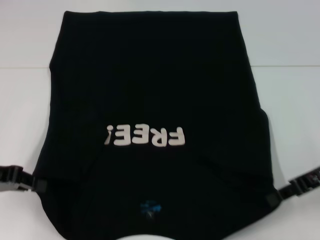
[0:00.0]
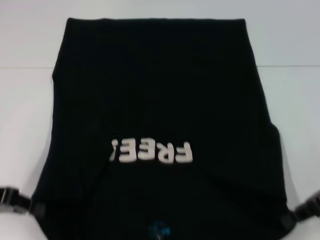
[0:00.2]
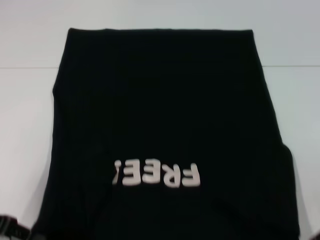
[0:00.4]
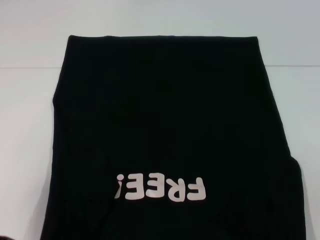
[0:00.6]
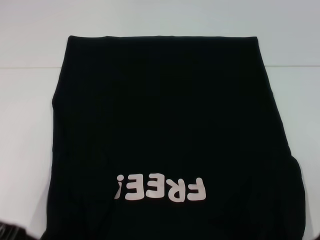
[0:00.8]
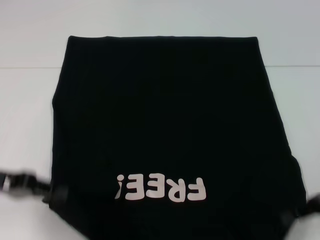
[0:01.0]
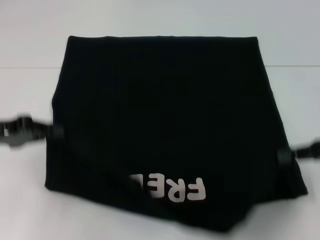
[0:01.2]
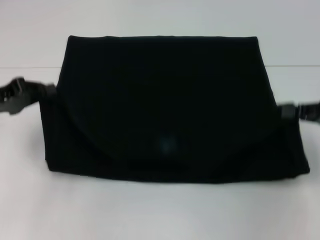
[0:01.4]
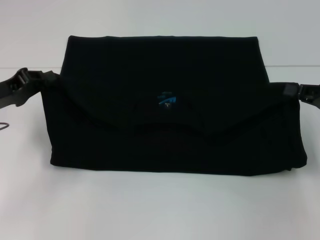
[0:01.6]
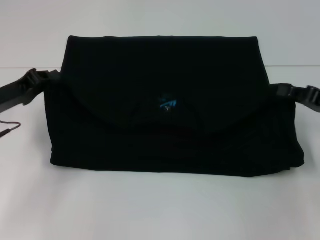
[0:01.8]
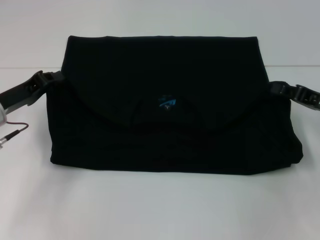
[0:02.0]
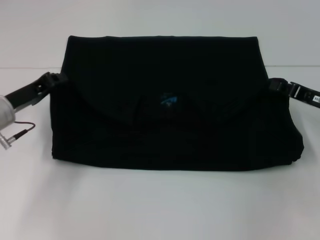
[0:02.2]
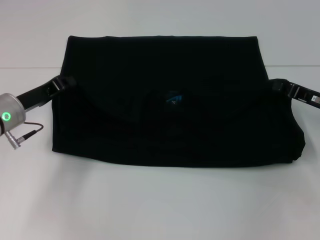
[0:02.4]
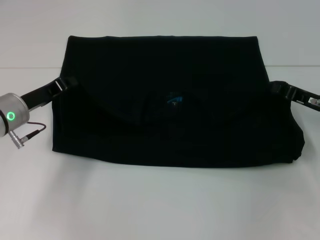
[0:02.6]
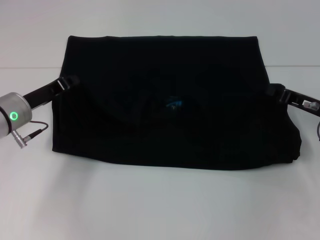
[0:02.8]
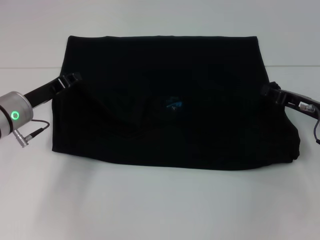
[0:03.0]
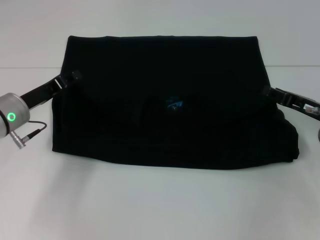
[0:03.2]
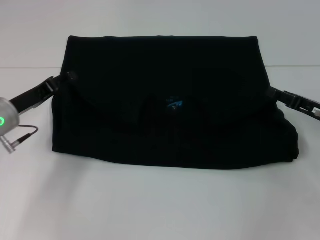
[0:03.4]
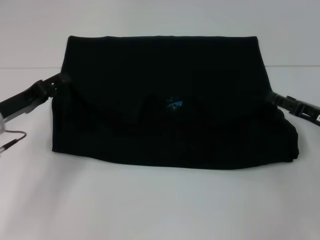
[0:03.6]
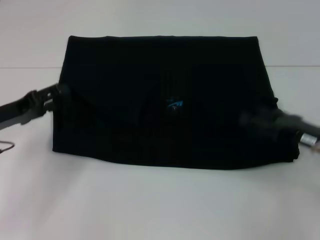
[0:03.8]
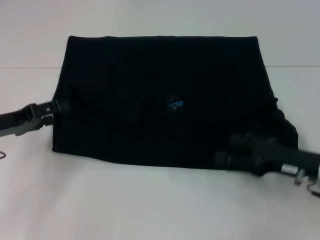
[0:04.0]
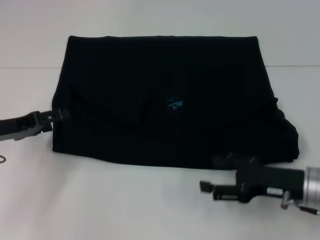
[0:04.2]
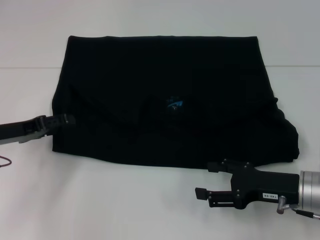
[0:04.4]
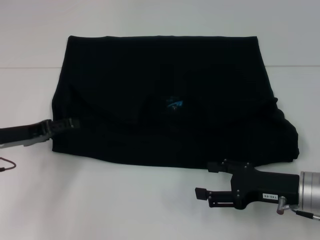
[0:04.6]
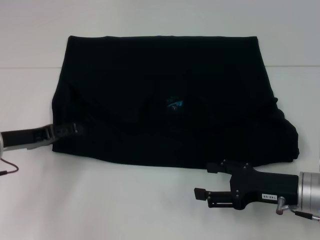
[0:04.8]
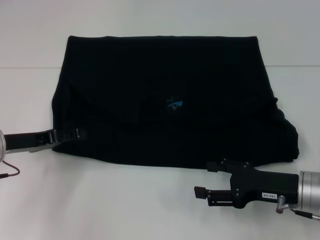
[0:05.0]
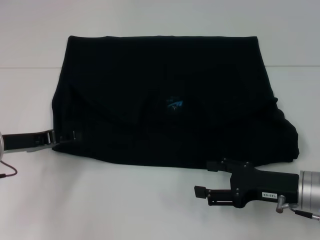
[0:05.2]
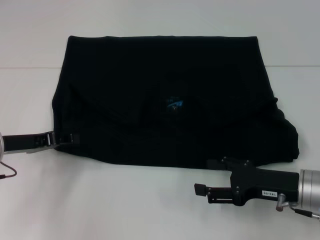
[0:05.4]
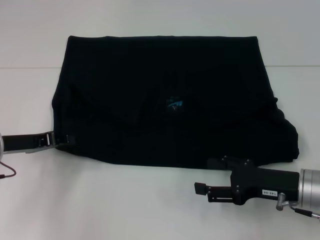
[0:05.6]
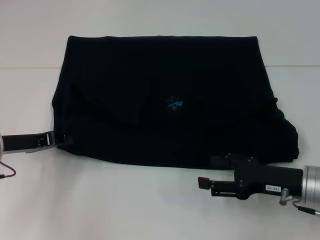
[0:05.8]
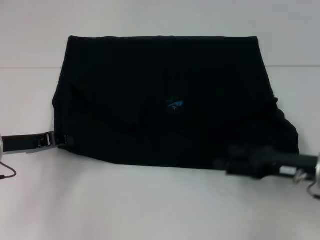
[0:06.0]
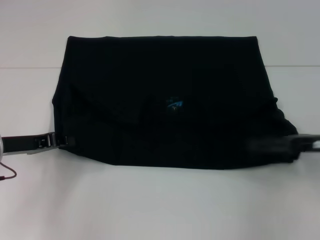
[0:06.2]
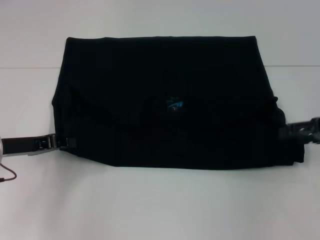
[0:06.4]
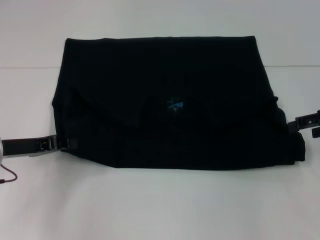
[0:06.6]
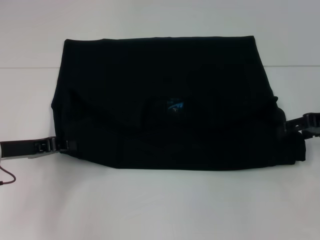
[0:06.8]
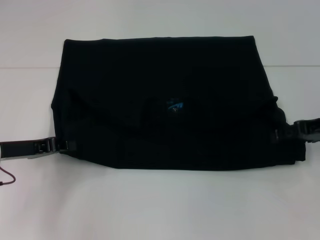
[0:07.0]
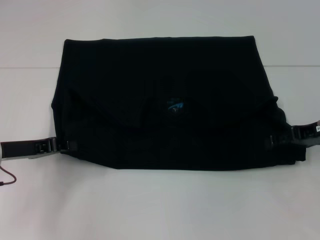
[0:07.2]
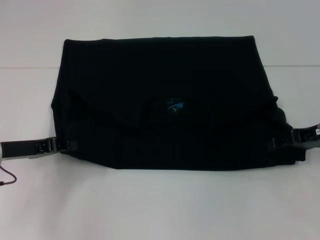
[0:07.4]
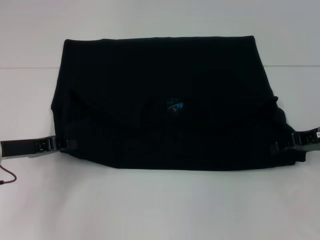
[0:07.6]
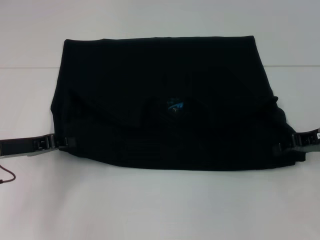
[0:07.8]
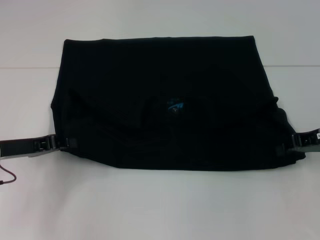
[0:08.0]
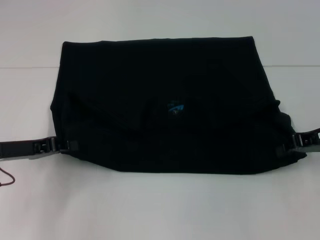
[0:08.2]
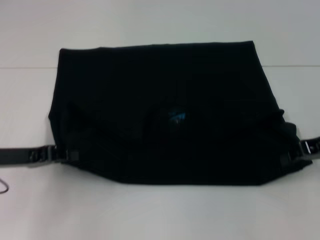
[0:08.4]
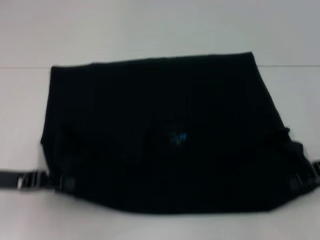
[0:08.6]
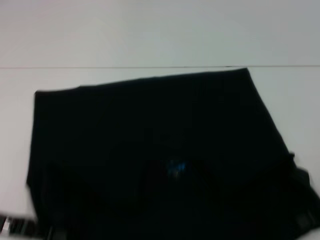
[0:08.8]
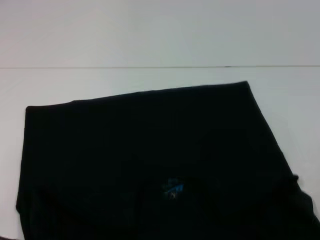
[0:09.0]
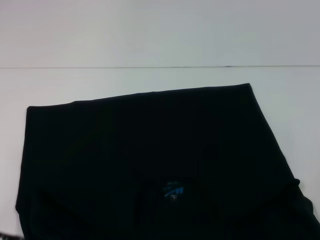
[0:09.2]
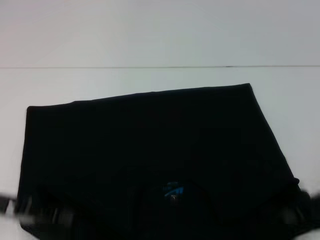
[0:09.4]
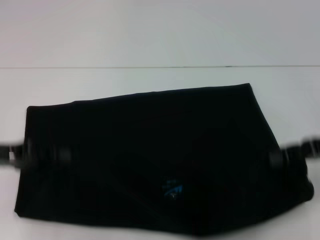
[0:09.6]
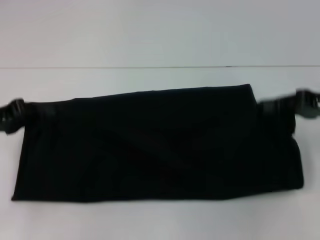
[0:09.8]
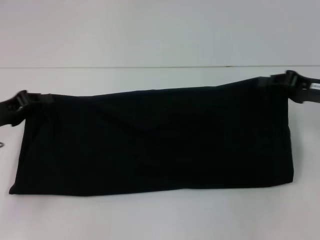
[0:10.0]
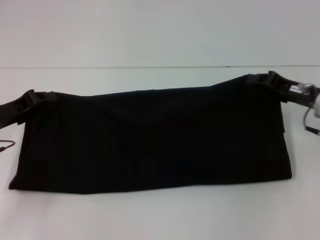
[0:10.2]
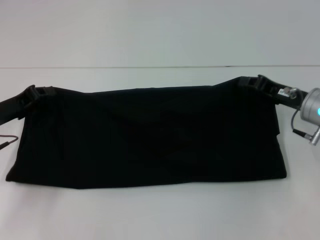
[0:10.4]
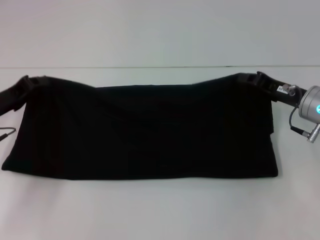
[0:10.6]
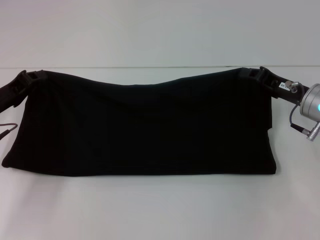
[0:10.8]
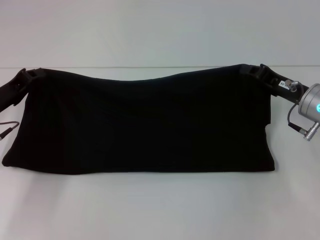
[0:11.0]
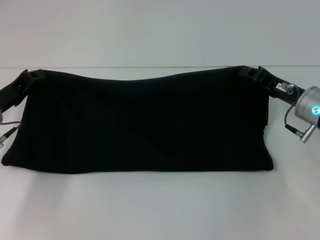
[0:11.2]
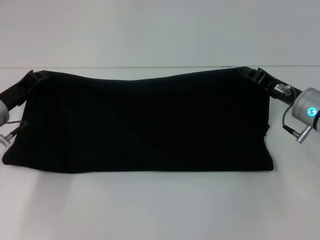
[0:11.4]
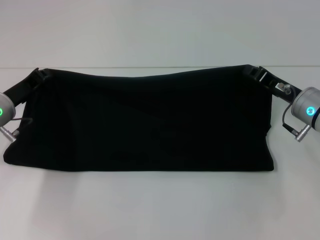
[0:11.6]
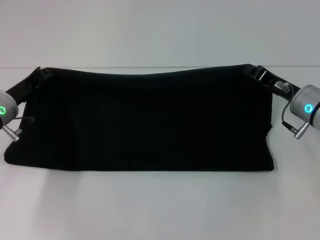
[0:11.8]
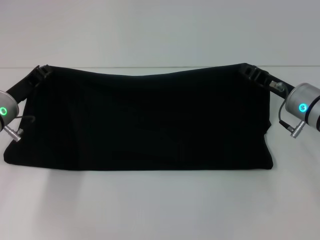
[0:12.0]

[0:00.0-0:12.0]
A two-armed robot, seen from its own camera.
Step, 0.0 to 3.2 s: Fold the clothes with your left hand.
Step, 0.0 to 3.2 s: Fold the clothes with your right hand.
Step, 3.4 to 9.0 s: Pull the clothes with your left hand.
Step, 3.4 to 9.0 s: Pull the clothes with your right hand.
0.0 to 1.6 s: The right gripper travels to the right by approximately 5 cm. The left gripper goes some 5 cm forward.
1.6 to 3.0 s: The right gripper shifts roughly 10 cm downward and to the left, while the left gripper travels to the right by approximately 5 cm.
3.0 to 4.4 s: The right gripper heads backward, covering approximately 10 cm, and opens up. The left gripper heads to the left, covering approximately 5 cm, and opens its fingers.
4.4 to 6.0 s: The left gripper closes.
6.0 to 7.6 s: The right gripper goes roughly 10 cm forward and upward.
7.6 to 9.0 s: Both grippers travel together backward, roughly 10 cm. The right gripper closes.
9.0 to 10.4 s: The left gripper is displaced forward by some 10 cm; the right gripper moves forward and to the left, about 10 cm.
10.4 to 12.0 s: The grippers move only a little.

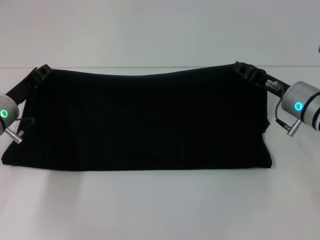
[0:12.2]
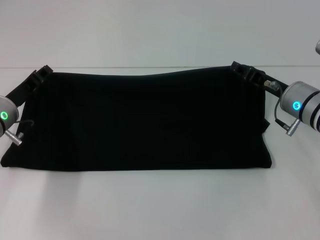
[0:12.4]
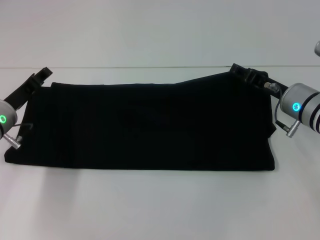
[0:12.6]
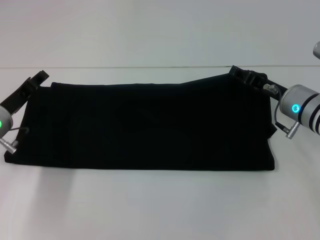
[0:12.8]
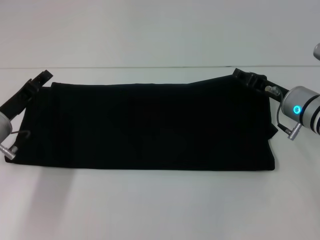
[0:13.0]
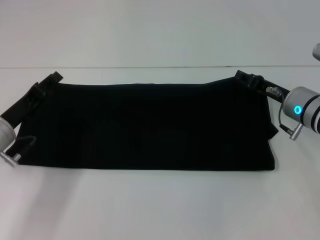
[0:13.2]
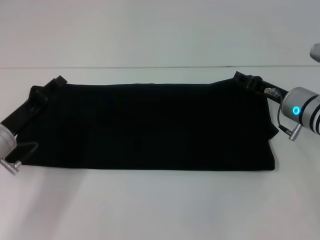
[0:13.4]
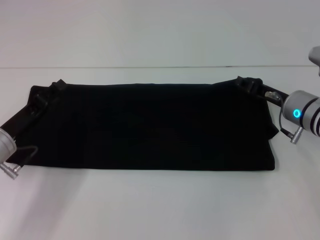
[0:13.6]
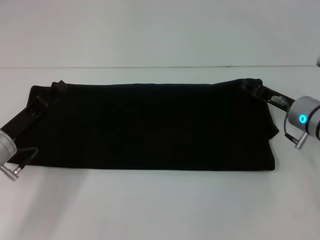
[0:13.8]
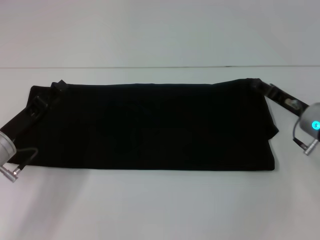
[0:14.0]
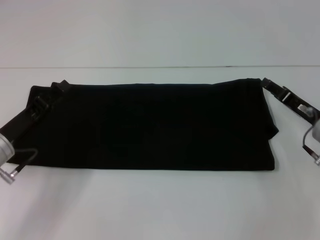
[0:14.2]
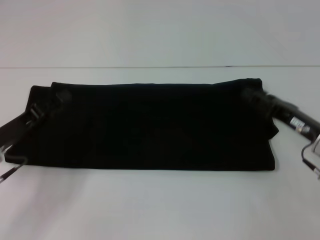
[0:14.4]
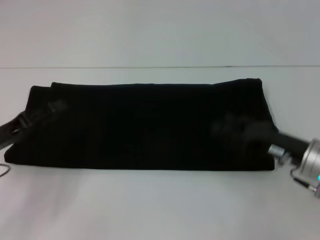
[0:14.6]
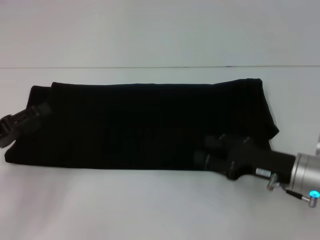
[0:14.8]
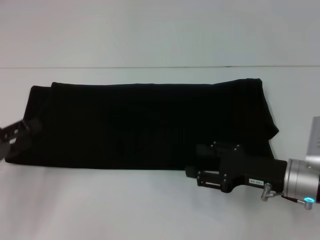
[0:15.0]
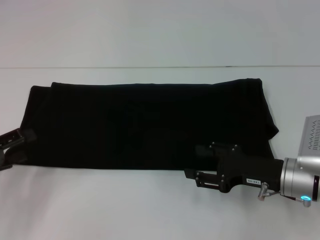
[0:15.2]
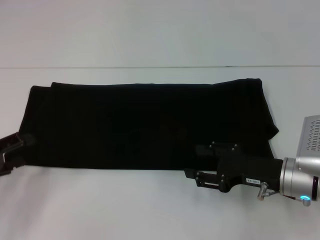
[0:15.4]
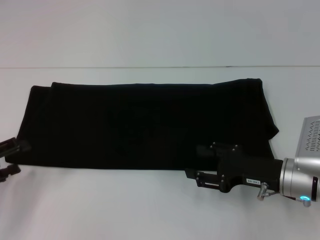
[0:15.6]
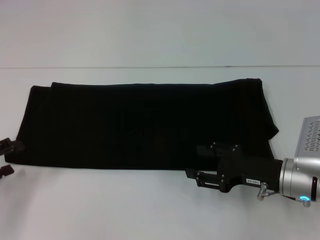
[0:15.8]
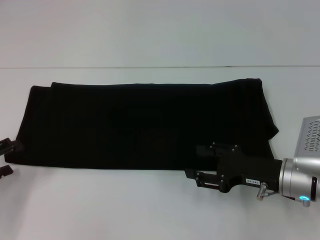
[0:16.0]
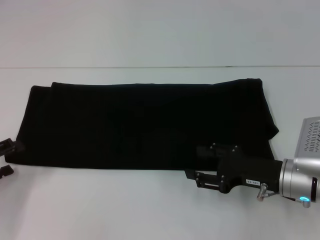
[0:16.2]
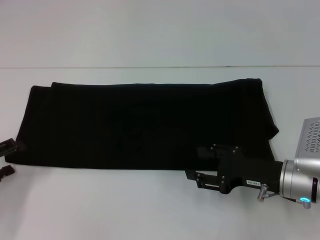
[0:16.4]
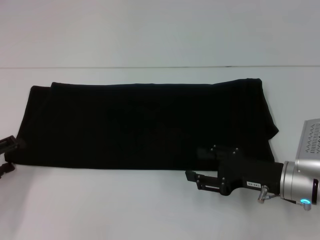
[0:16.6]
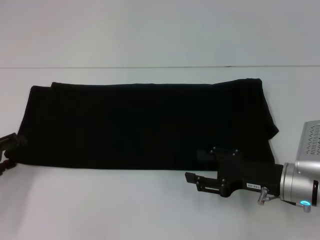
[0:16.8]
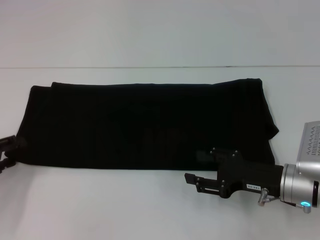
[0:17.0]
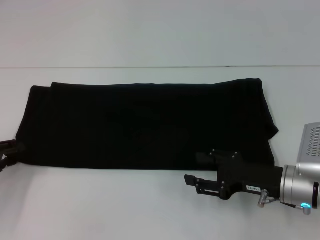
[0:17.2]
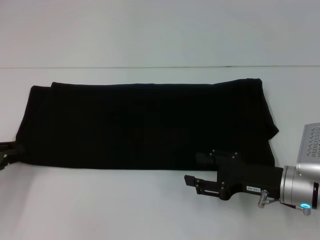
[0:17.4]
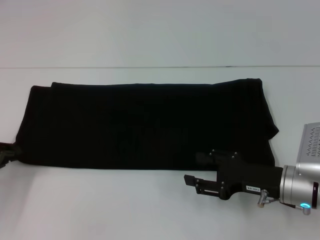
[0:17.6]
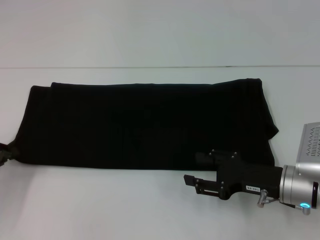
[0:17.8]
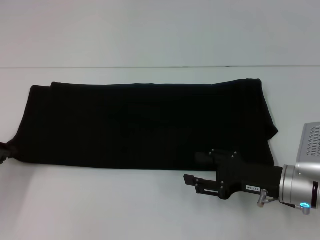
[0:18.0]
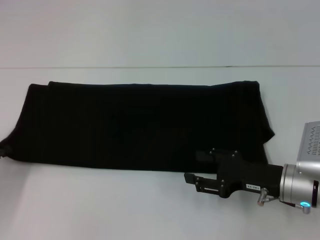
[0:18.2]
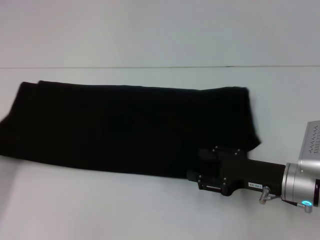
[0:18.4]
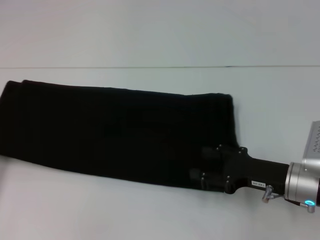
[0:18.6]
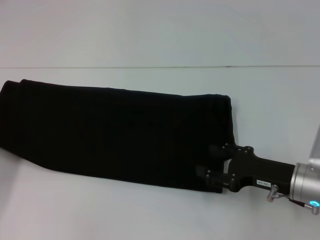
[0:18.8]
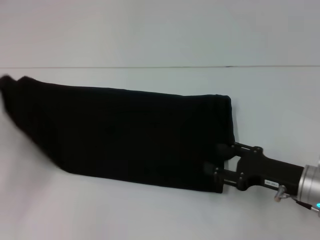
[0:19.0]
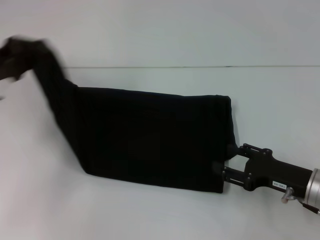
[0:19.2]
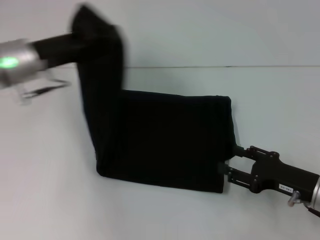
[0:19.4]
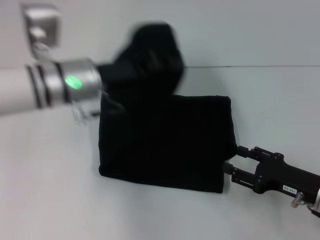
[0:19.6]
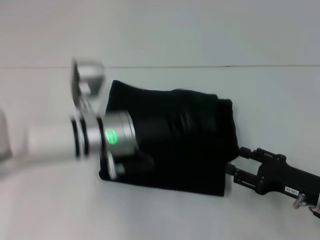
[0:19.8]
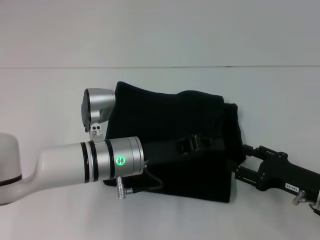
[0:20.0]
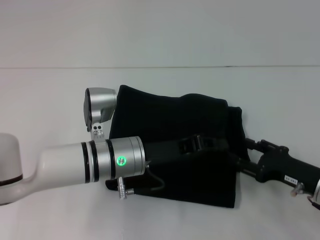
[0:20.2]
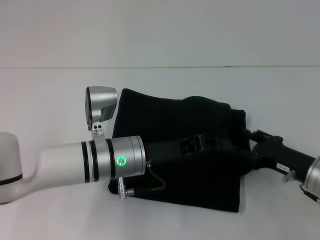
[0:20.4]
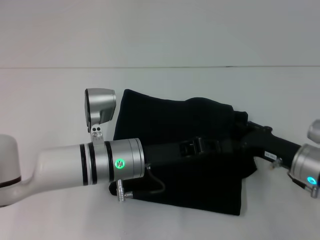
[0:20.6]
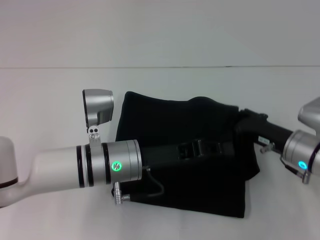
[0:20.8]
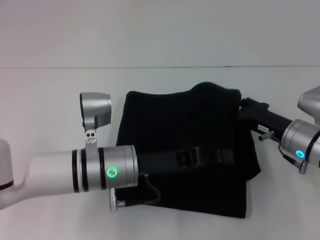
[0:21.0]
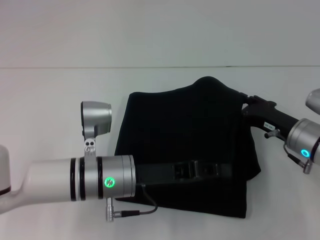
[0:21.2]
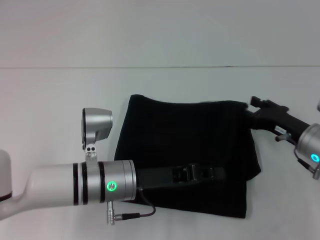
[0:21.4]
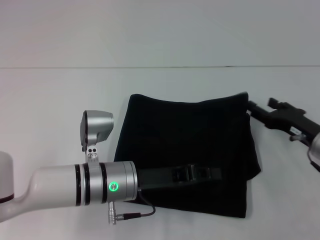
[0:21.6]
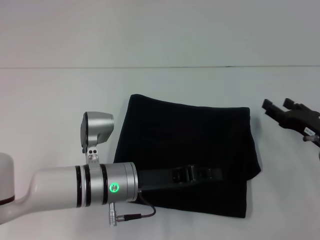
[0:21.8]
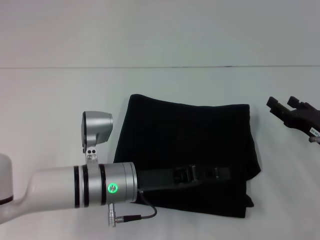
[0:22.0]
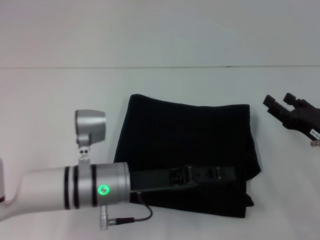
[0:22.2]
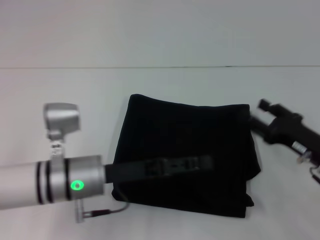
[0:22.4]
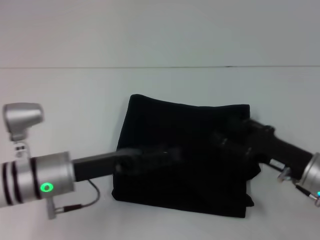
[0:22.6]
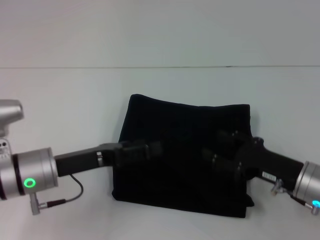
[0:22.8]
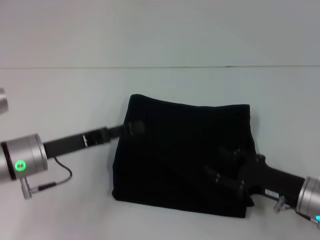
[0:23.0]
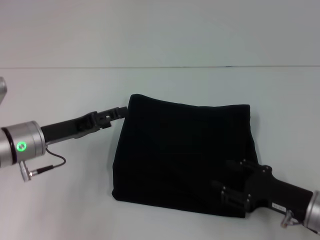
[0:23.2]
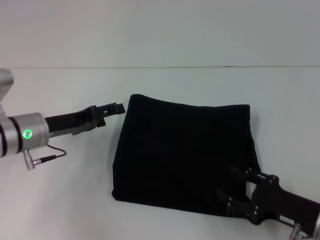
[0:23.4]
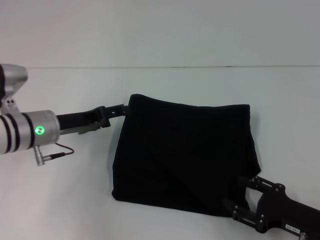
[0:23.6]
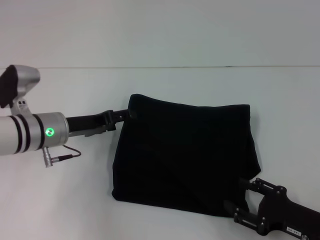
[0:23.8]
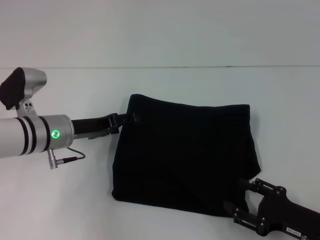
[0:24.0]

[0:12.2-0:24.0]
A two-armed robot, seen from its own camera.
Step, 12.2 to 22.4 s: Fold the clothes with your left hand.
12.2 to 13.6 s: The left gripper heads backward, covering some 5 cm, and opens; the right gripper opens its fingers.
13.6 to 15.2 s: The right gripper is displaced backward by roughly 10 cm. Meanwhile the left gripper travels to the left and backward by some 10 cm.
15.2 to 16.6 s: The grippers stay close to where they were, moving slightly.
16.6 to 18.2 s: The left gripper closes.
18.2 to 19.6 s: The left gripper moves to the right, forward and upward, approximately 25 cm. The right gripper is displaced to the right by about 5 cm.
19.6 to 21.0 s: The right gripper travels forward by some 10 cm, while the left gripper travels downward, backward and to the right by about 10 cm.
21.0 to 22.6 s: The right gripper goes about 5 cm backward; the left gripper shifts some 10 cm to the left, and opens up.
22.6 to 24.0 s: The left gripper travels forward by about 10 cm, while the right gripper heads backward, covering about 10 cm.
